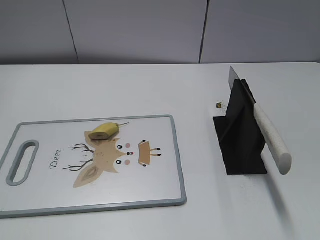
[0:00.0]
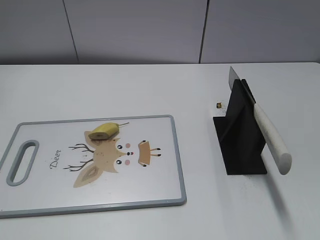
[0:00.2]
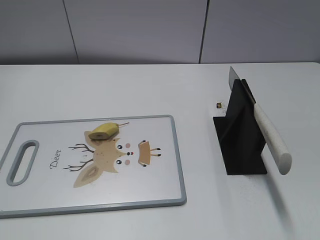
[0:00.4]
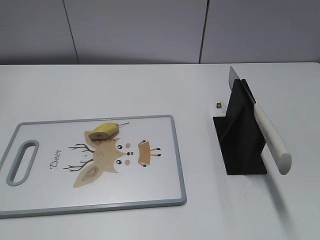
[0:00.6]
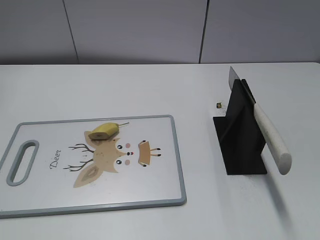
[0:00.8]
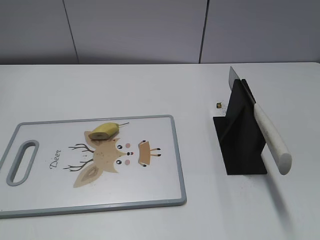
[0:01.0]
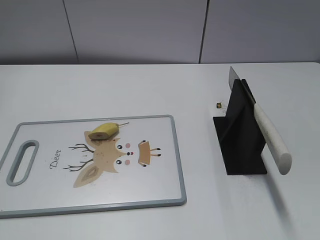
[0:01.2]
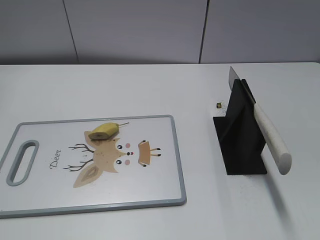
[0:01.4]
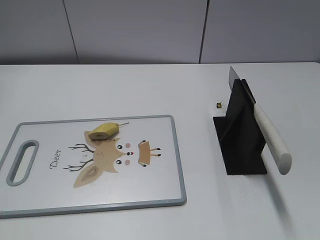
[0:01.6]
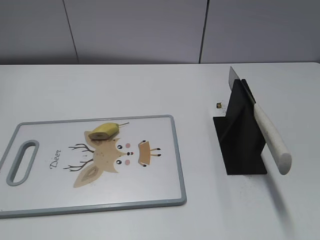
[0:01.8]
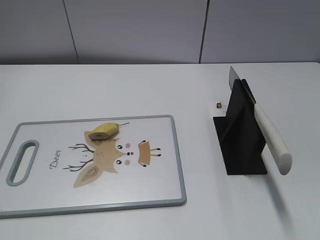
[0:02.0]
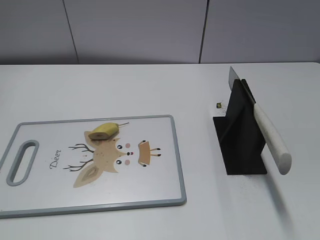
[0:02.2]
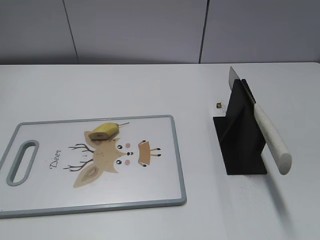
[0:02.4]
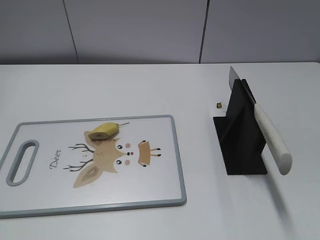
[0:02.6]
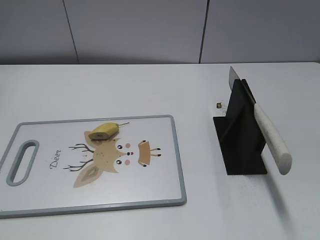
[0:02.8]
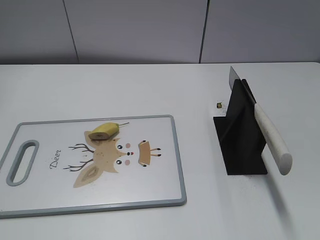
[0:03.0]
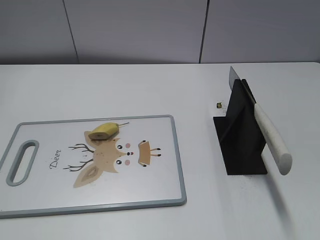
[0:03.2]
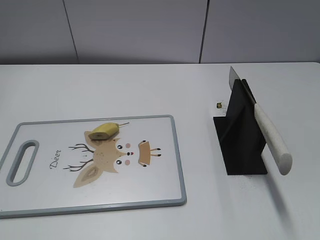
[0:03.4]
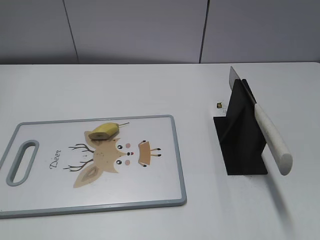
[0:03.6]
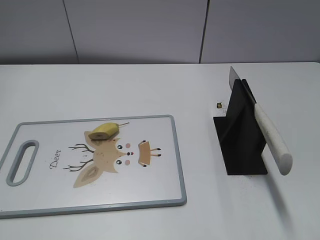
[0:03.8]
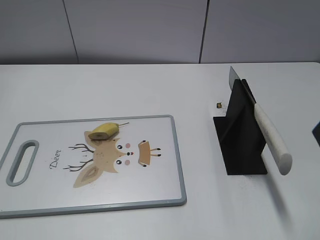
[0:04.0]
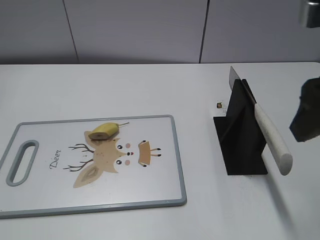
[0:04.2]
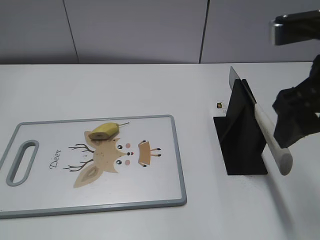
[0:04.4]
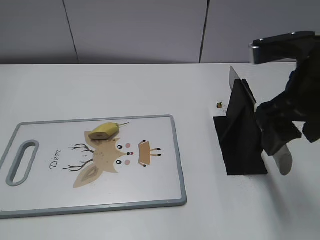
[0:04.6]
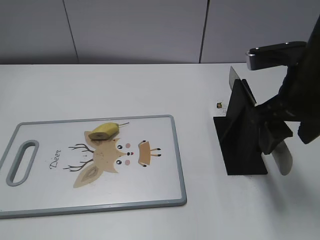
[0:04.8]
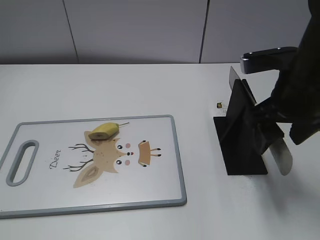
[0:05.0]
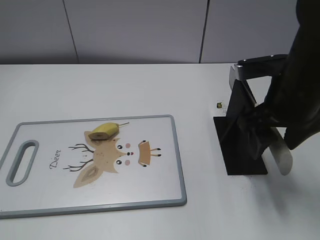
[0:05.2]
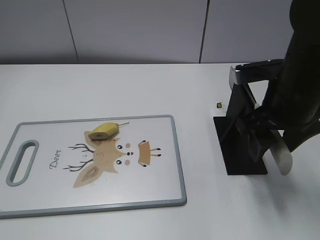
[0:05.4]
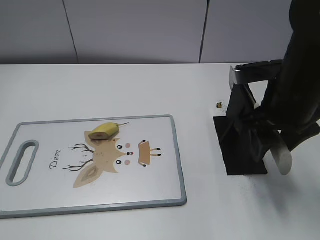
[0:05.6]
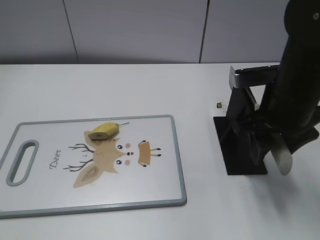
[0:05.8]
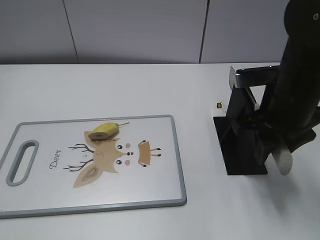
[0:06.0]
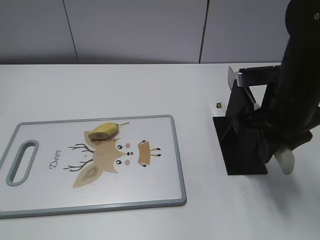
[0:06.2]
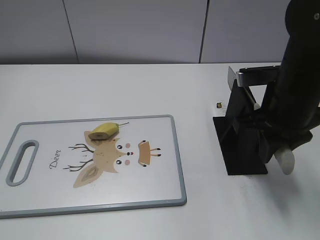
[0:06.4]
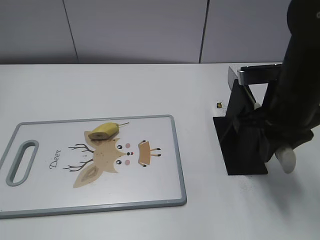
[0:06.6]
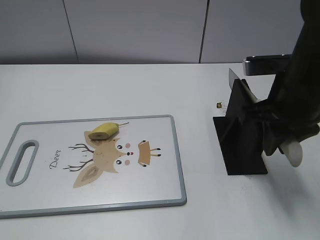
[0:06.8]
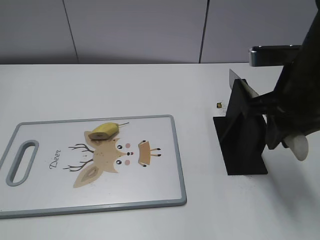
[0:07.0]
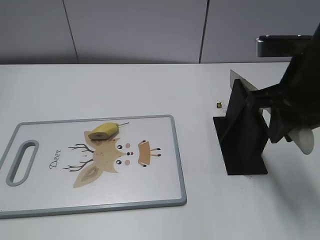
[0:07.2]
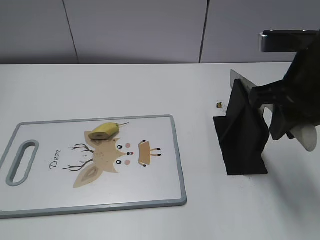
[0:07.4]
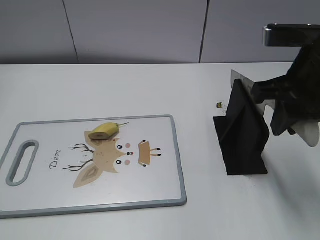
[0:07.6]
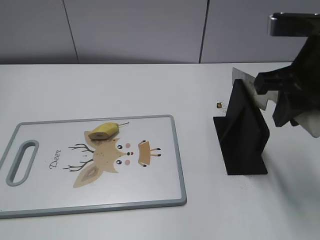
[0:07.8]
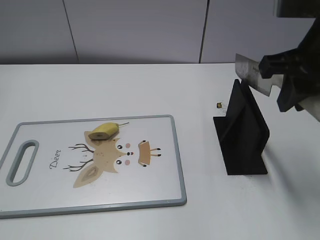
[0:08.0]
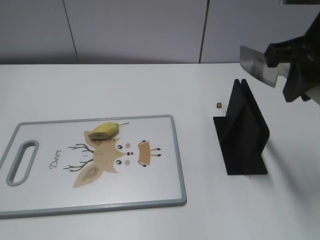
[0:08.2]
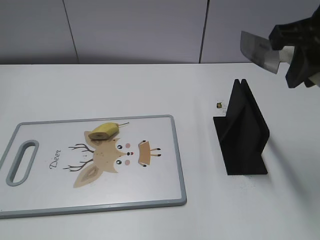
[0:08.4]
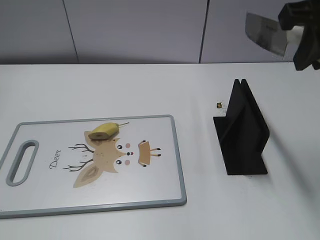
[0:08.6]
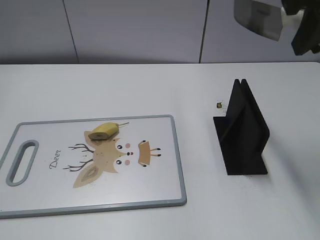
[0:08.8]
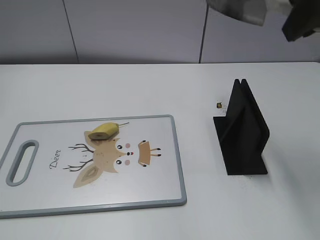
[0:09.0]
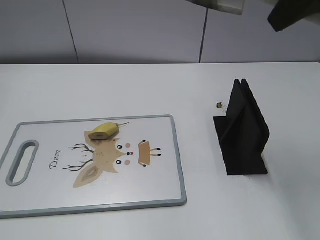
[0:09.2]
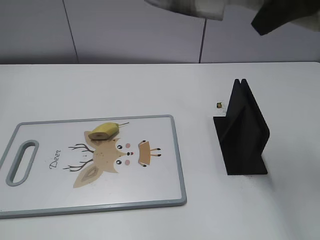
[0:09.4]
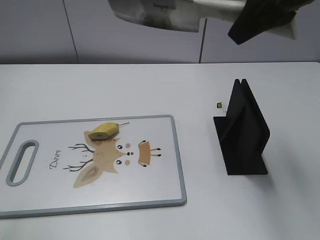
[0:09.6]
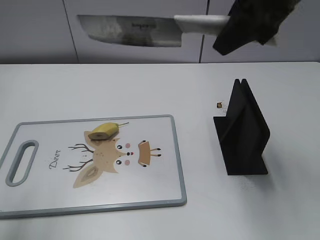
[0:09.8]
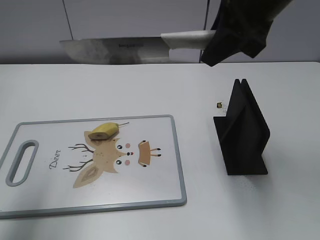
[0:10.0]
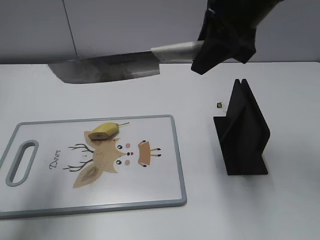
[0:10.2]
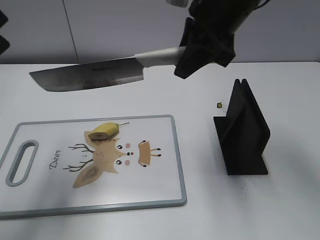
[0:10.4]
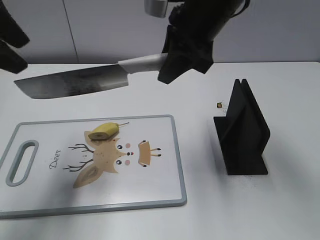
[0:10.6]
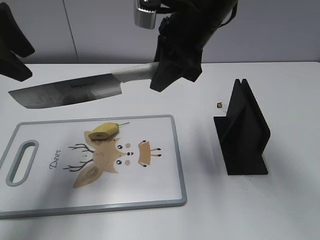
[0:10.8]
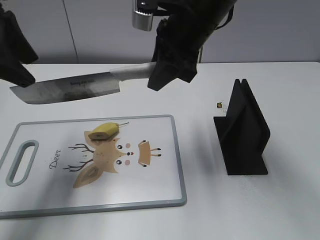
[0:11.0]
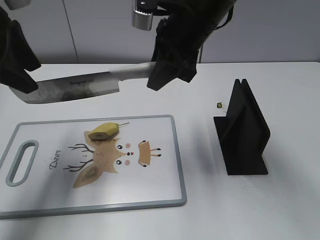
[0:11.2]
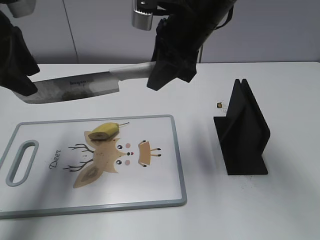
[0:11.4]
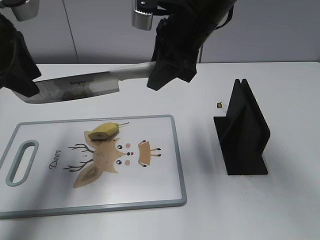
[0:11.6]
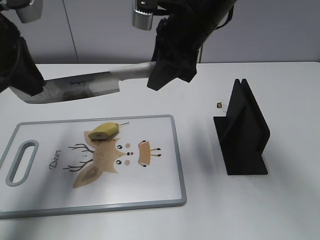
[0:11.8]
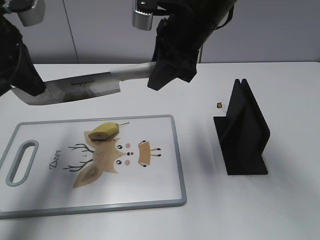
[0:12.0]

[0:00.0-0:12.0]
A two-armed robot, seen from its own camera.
Task of the whole recording: cut banana.
Step, 0:00.0 to 0:07.6: Grab the knife handle with your right hand.
0:03.0 to 0:04.4: The right gripper heads forward and to the left, covering about 20 cm.
0:04.4 to 0:06.0: The right gripper travels downward and forward by roughly 10 cm, and closes up.
0:06.0 to 0:07.6: The right gripper is displaced upward by some 5 cm.
0:07.6 to 0:09.0: The right gripper heads upward, covering approximately 10 cm.
0:09.0 to 0:10.4: The right gripper is displaced to the left, forward and downward by approximately 15 cm. Meanwhile the left gripper heads forward, covering about 25 cm.
0:10.4 to 0:12.0: The right gripper shifts by roughly 5 cm. Meanwhile the left gripper heads downward and forward, covering about 10 cm, and closes its fingers.

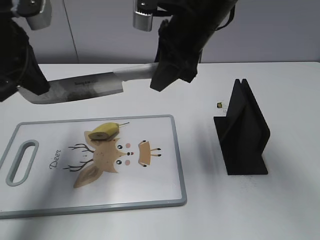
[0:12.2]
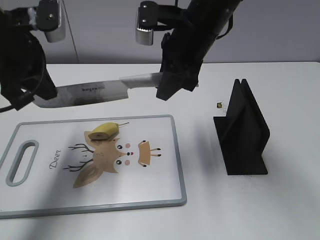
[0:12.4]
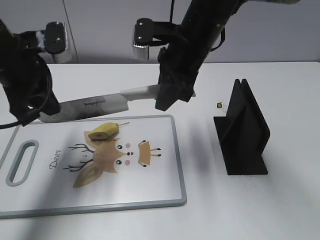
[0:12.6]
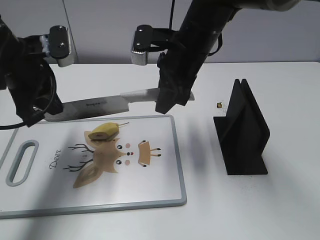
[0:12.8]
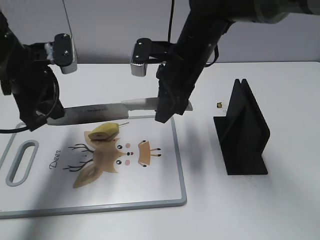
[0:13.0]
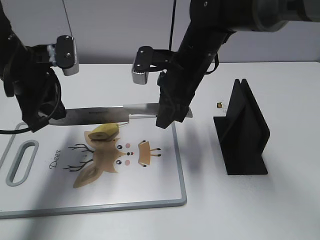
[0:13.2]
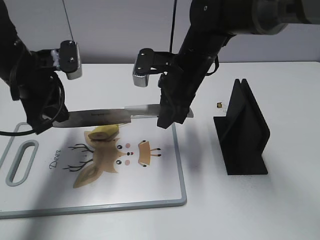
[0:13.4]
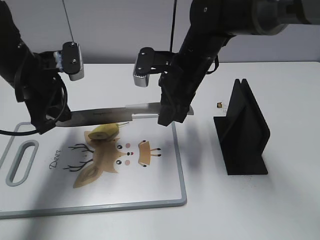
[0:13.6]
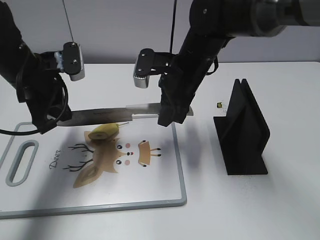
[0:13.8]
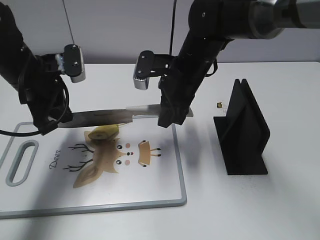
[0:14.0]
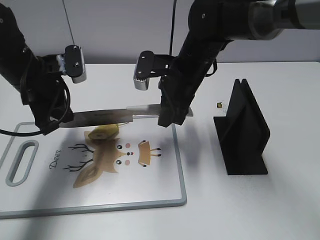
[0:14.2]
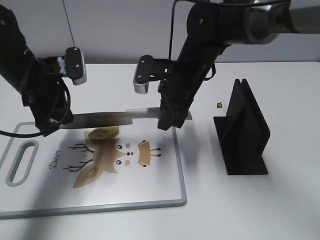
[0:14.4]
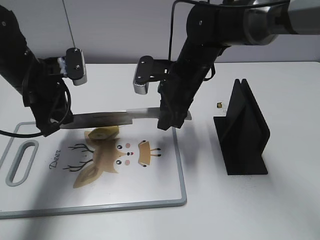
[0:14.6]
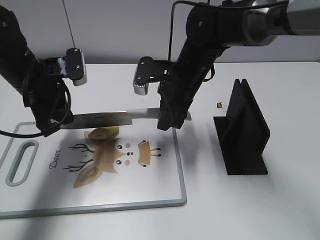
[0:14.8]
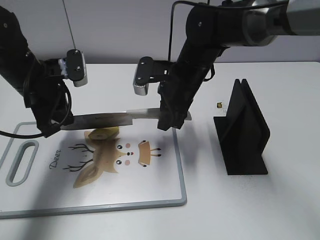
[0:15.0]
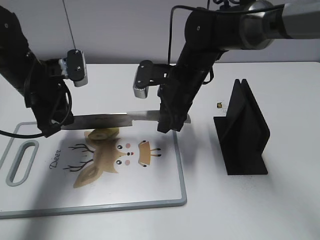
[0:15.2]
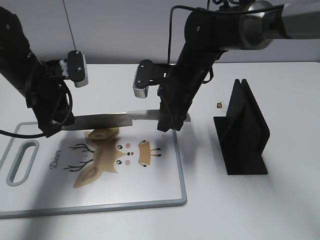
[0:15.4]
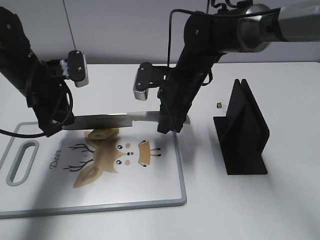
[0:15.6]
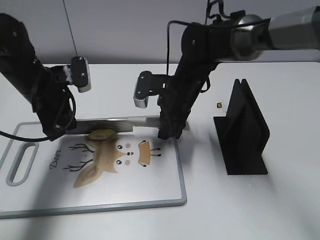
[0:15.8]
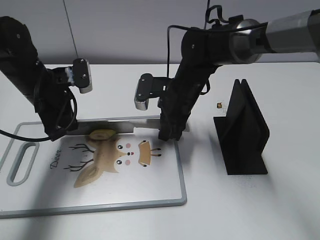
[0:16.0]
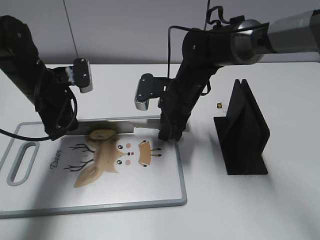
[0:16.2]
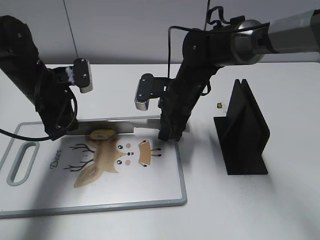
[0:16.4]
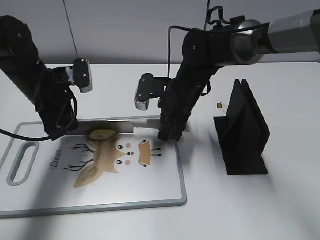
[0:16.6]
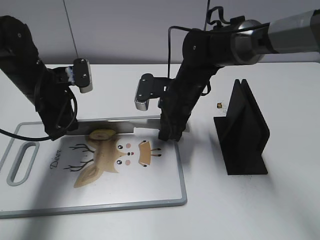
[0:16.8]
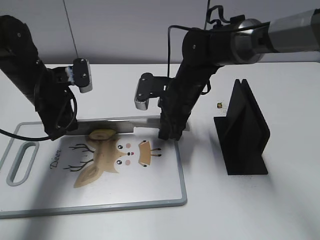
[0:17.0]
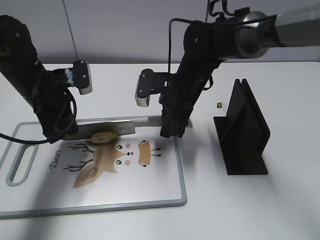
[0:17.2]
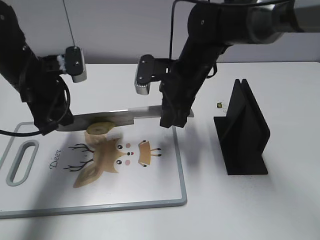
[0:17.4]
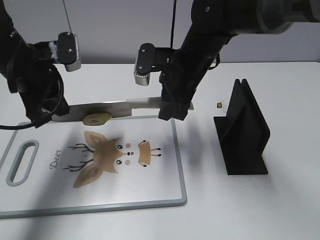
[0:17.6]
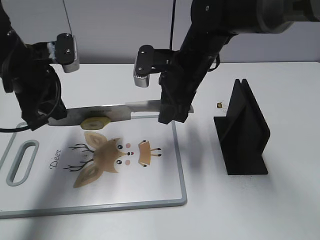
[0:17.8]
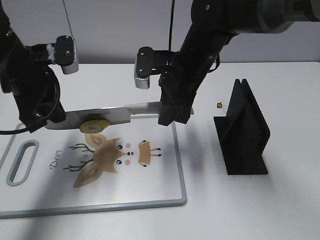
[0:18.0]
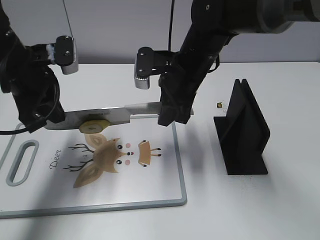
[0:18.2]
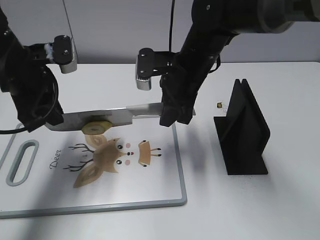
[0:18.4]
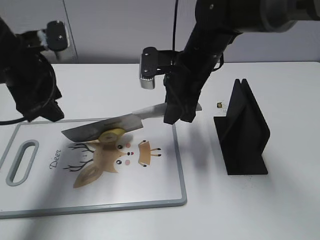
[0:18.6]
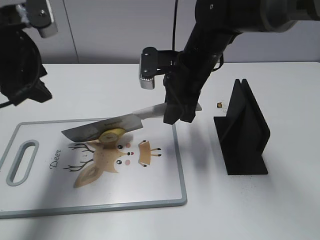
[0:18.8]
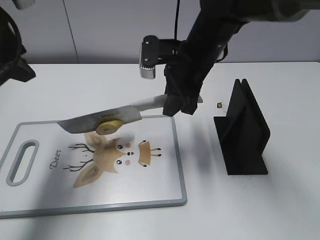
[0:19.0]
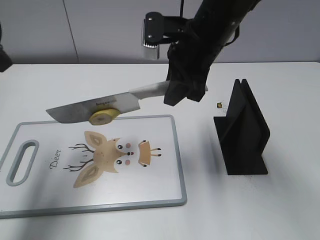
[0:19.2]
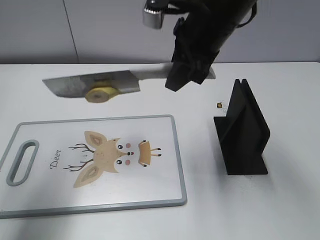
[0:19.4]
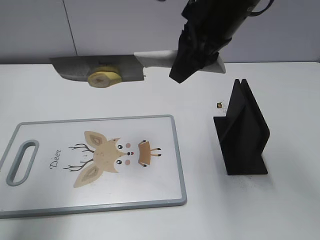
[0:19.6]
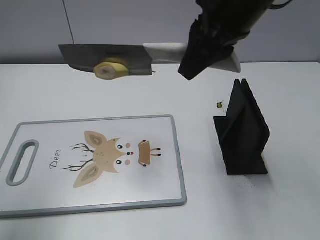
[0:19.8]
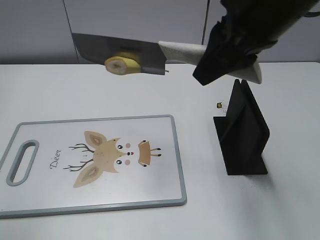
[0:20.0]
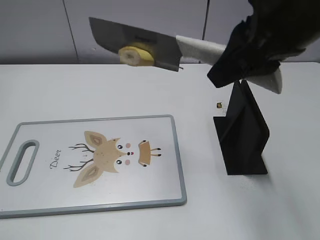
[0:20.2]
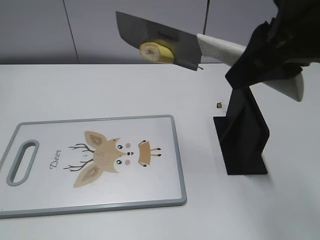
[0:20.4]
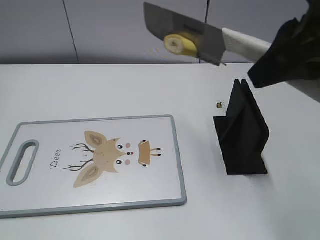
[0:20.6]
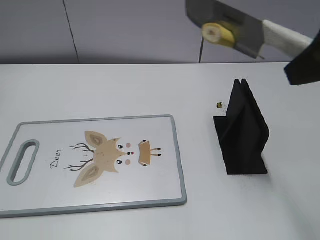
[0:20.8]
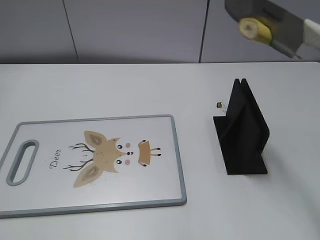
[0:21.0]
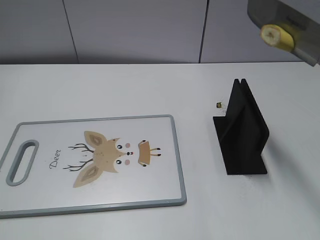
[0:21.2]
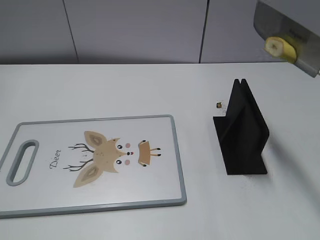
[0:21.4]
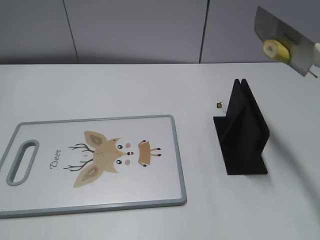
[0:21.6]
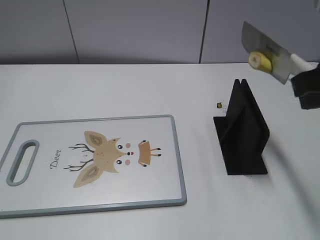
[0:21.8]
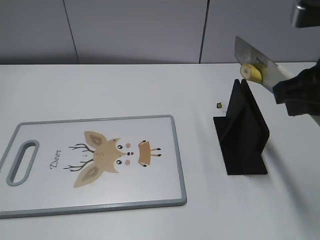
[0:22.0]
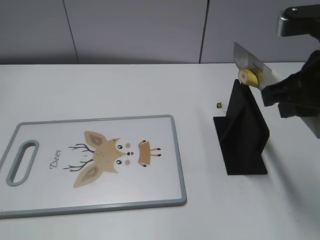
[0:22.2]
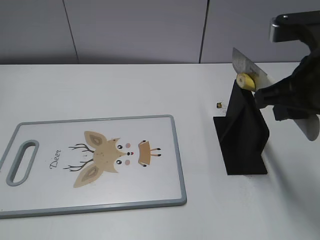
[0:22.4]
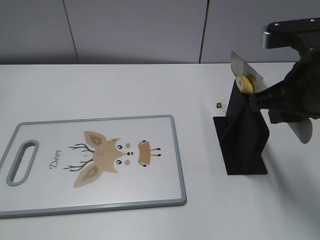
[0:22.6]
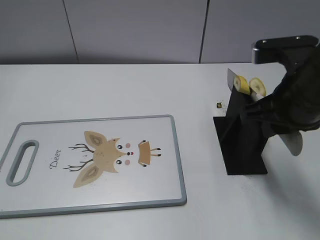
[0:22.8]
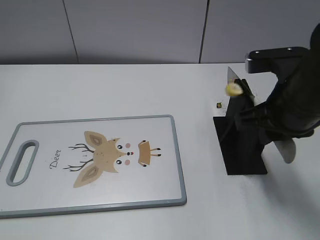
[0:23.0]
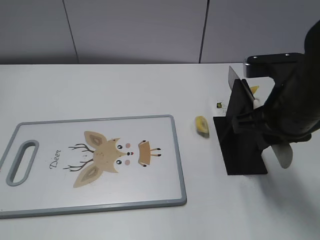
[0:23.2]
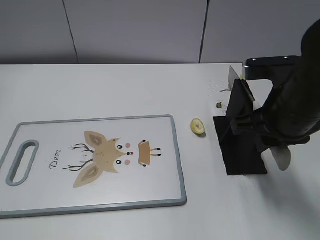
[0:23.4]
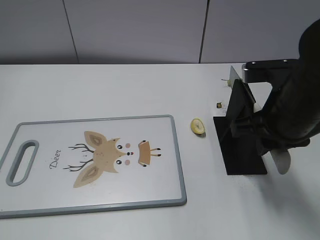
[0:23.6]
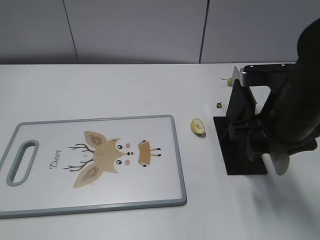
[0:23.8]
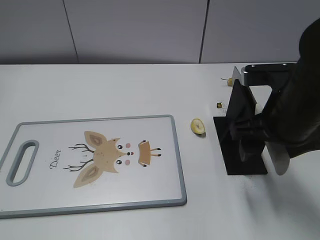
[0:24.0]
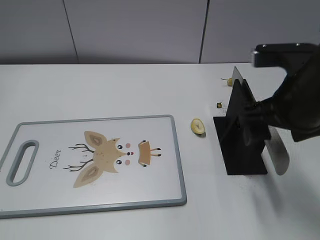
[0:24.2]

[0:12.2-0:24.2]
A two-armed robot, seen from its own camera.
Task of the whole recording: cut banana.
Step, 0:12.2 to 0:14.8: Lift the knife with your right hand.
Step, 0:15.0 to 0:21.0: Cut the banana with your right hand.
Step, 0:21.2 to 0:22.4: Lift the knife with your right hand.
0:12.2 to 0:13.8: The two grippers go some 10 cm downward.
0:13.8 to 0:15.2: There are only small adjustments of the grippers.
0:15.2 to 0:16.6: The grippers make only small movements.
0:16.6 to 0:18.2: The two grippers go roughly 10 cm upward.
0:18.2 to 0:19.8: The right gripper moves upward and backward, about 15 cm; the left gripper is displaced upward, backward and to the left by some 20 cm, and opens its fingers.
0:19.8 to 0:21.2: The left gripper is displaced backward and downward by some 20 cm. The right gripper heads backward and to the right, covering approximately 20 cm.
0:21.2 to 0:22.6: The right gripper goes some 15 cm downward and forward.
0:22.6 to 0:24.2: The right gripper opens up.
